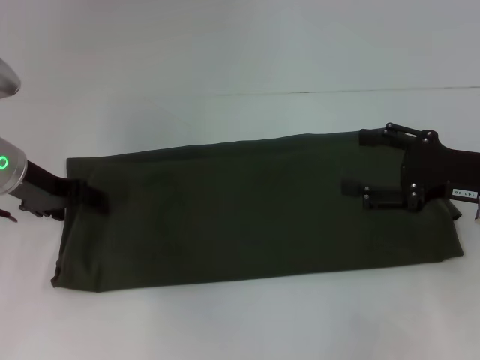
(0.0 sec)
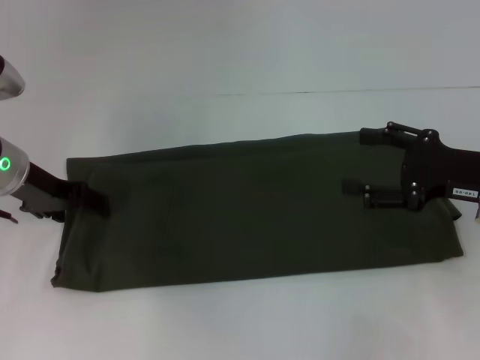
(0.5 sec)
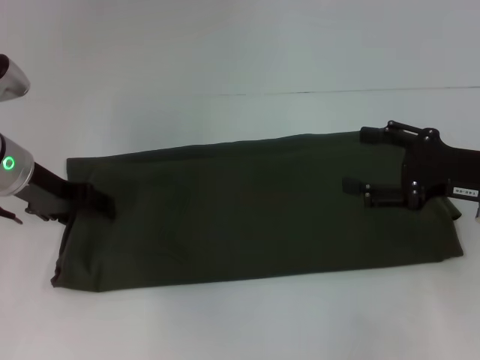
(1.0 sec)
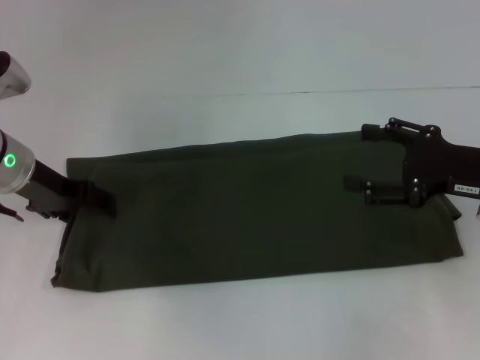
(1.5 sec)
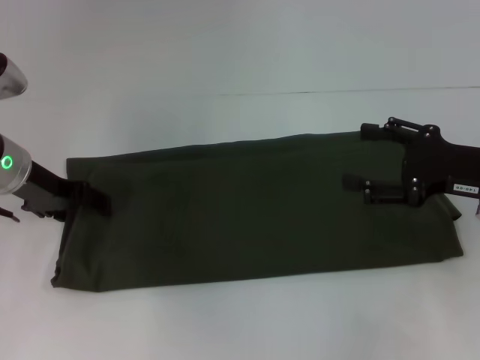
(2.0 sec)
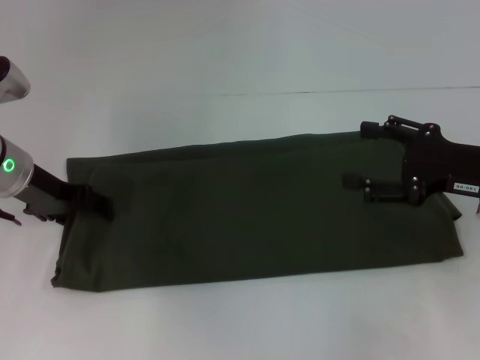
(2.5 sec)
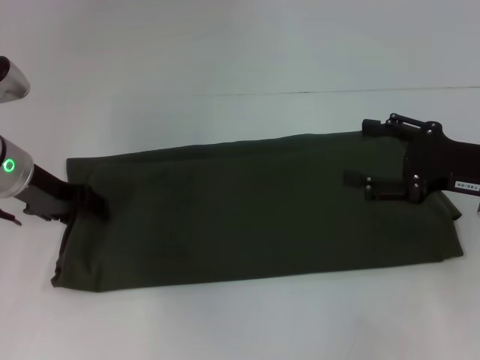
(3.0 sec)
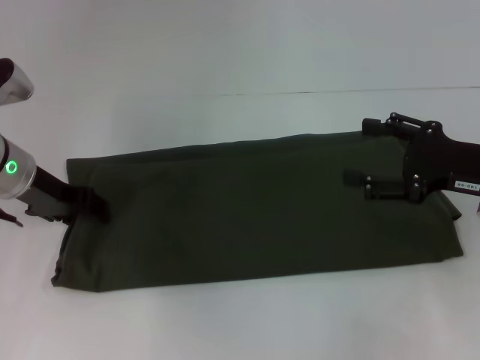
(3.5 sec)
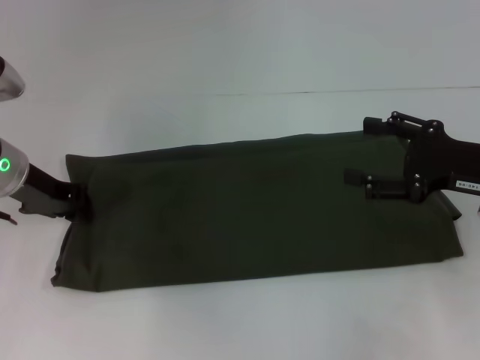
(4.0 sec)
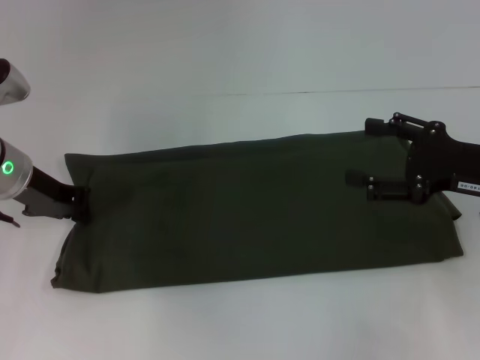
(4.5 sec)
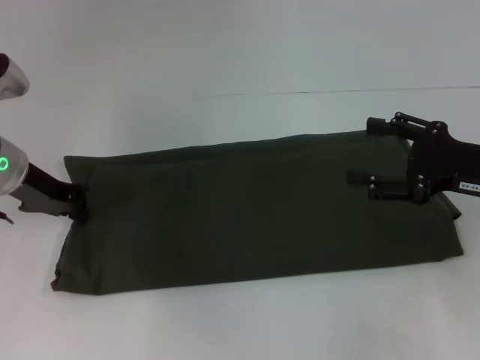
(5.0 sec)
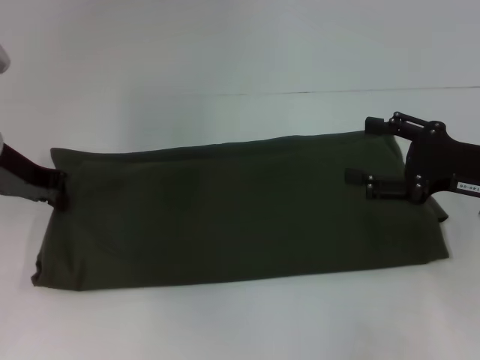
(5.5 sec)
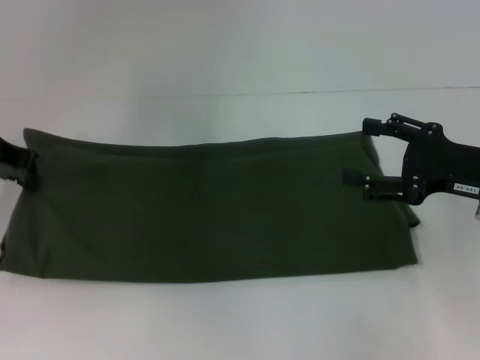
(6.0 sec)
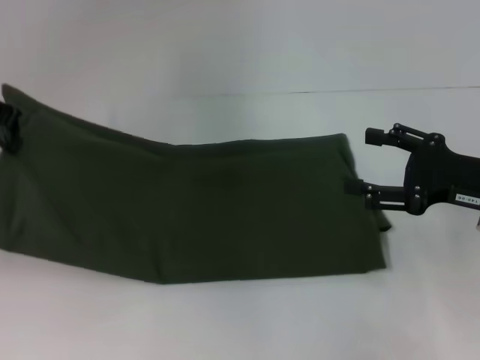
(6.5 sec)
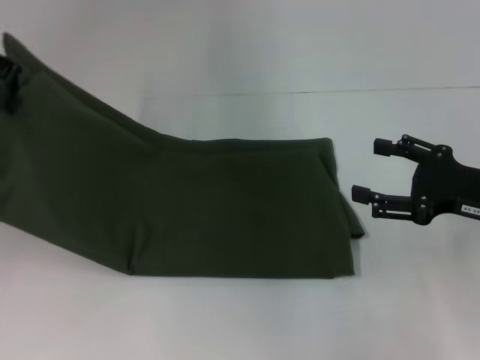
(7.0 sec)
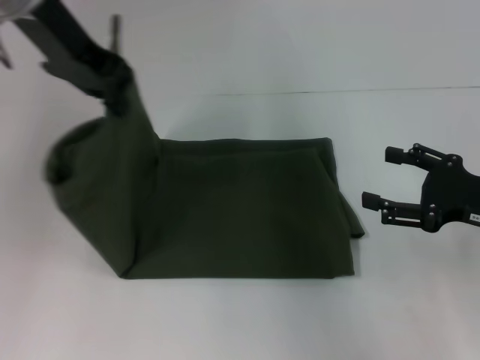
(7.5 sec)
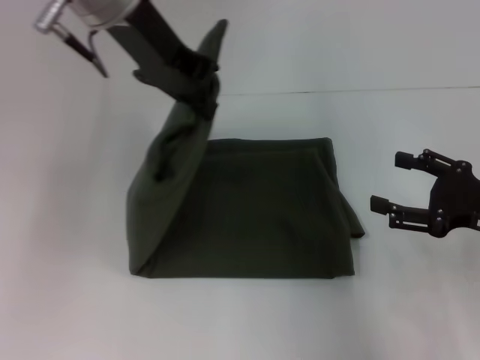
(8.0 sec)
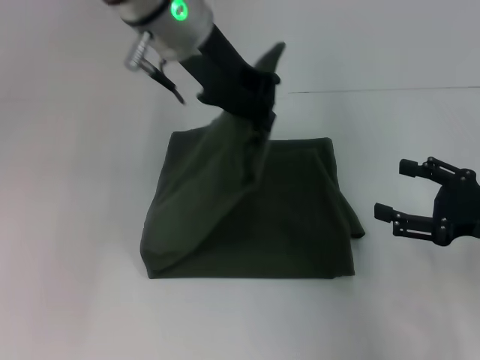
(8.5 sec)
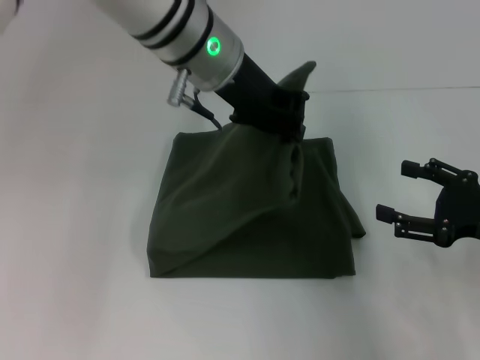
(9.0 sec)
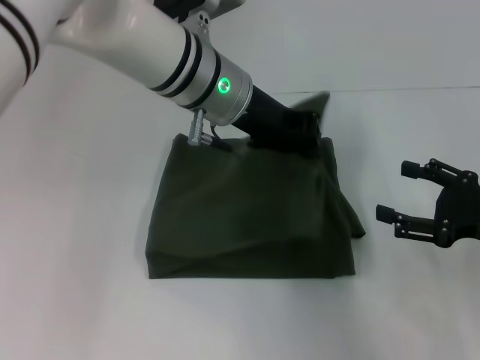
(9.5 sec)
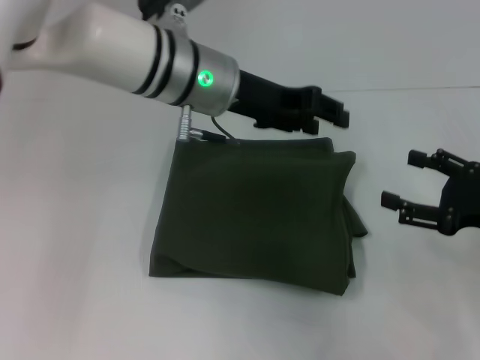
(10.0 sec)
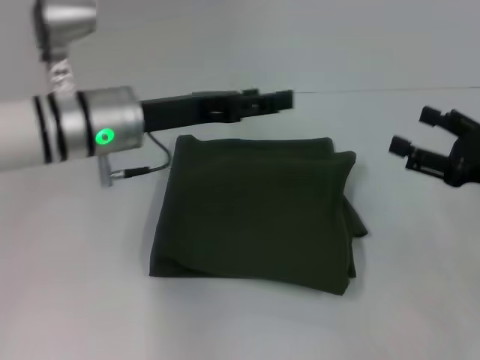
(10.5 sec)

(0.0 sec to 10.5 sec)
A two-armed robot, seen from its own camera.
Step, 0.0 sec - 9.5 sec: Fold the clothes with your left hand.
0.0 sec - 2.0 sec: Both grippers stay put.
2.0 sec - 4.0 sec: The left gripper closes up.
4.0 sec - 6.5 sec: The left gripper goes approximately 15 cm upward, and closes up.
6.5 sec - 8.5 sec: The left gripper is displaced to the right by approximately 20 cm.
8.5 sec - 10.5 sec: The left gripper moves downward and to the left, some 15 cm, and opens.

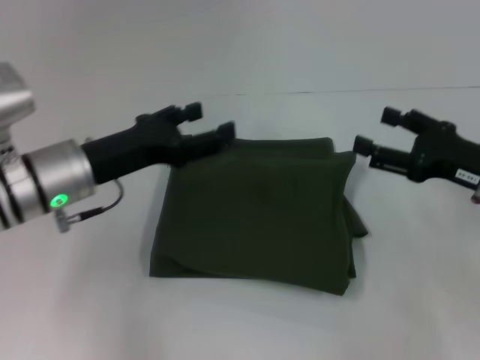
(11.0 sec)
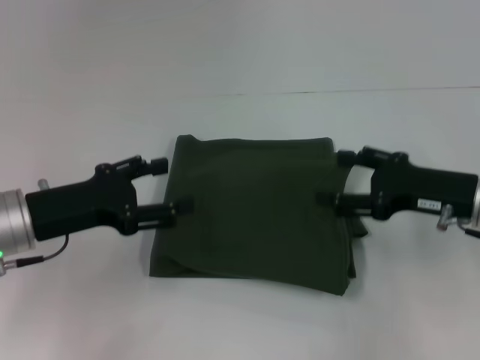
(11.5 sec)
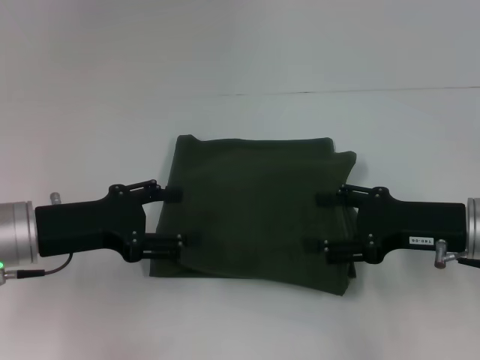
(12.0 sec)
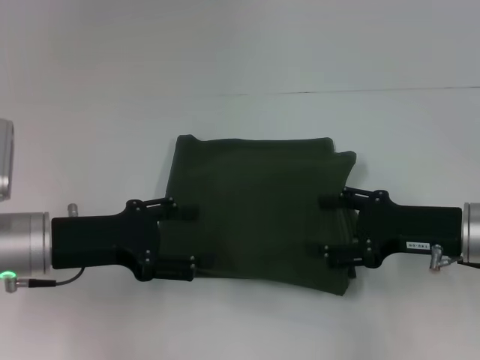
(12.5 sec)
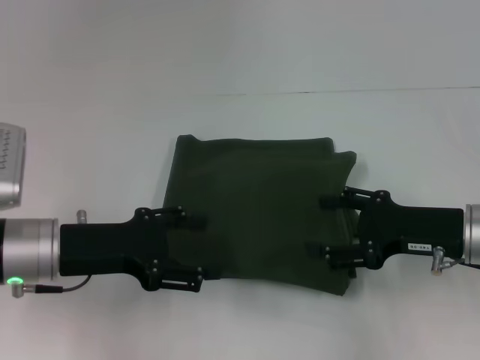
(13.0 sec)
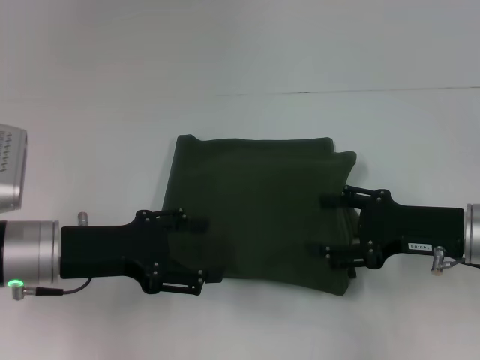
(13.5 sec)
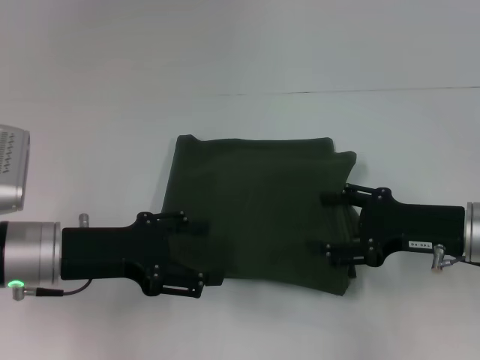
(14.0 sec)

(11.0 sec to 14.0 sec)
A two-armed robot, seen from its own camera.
11.0 sec - 12.5 sec: The left gripper changes place by roughly 5 cm.
12.5 sec - 14.0 sec: Both grippers stay about where they are.

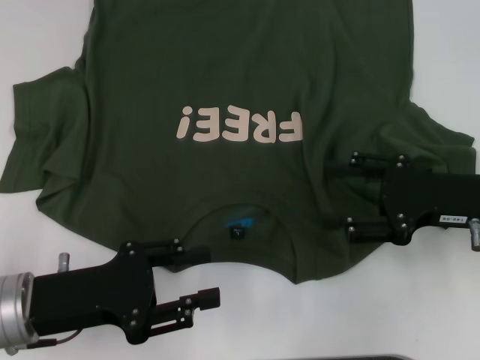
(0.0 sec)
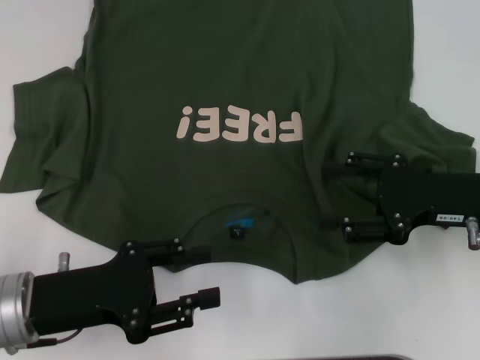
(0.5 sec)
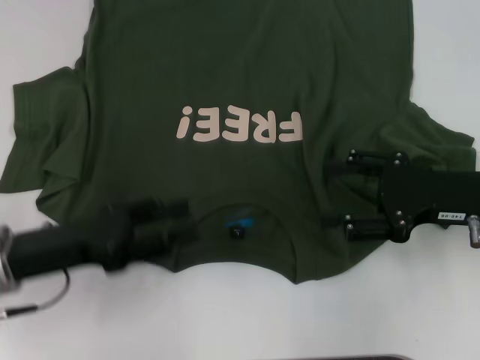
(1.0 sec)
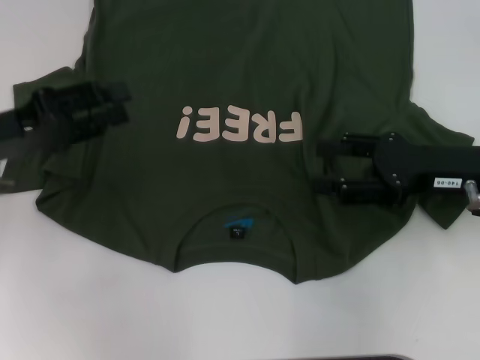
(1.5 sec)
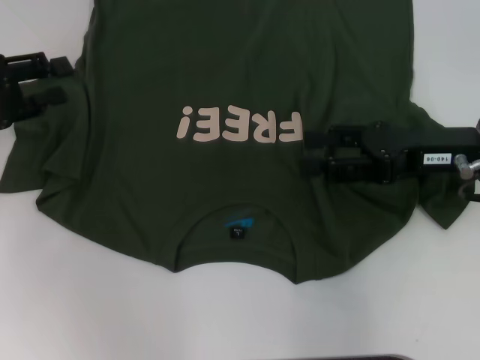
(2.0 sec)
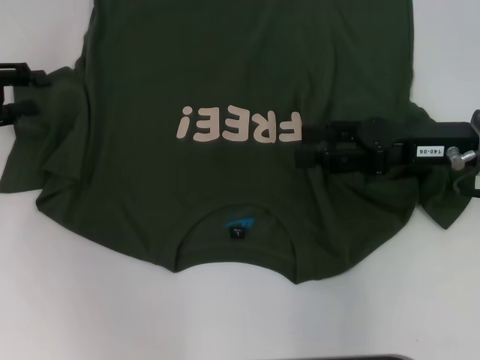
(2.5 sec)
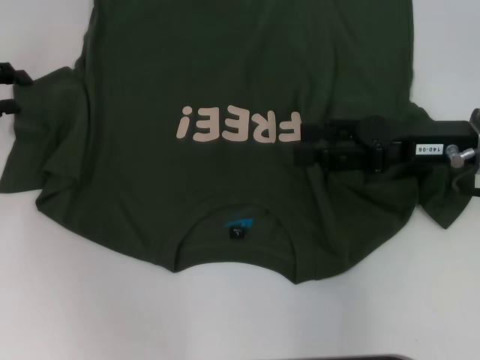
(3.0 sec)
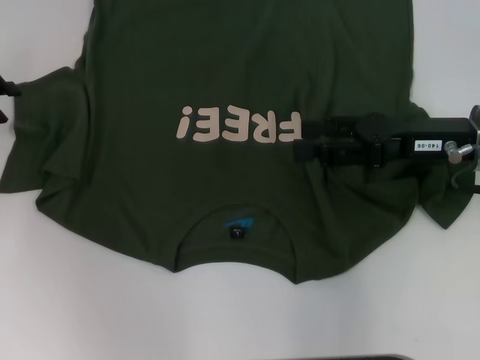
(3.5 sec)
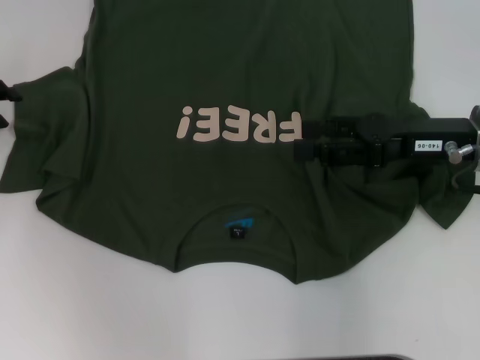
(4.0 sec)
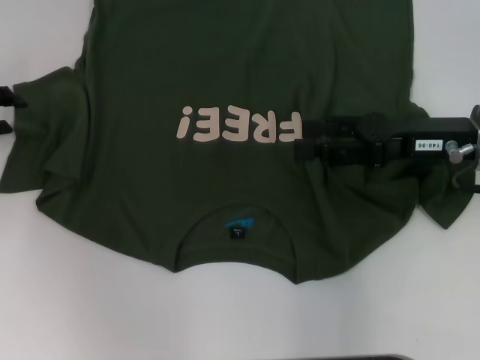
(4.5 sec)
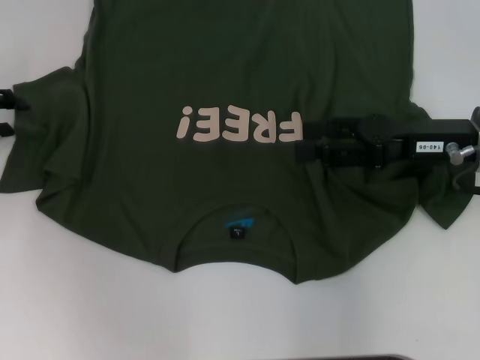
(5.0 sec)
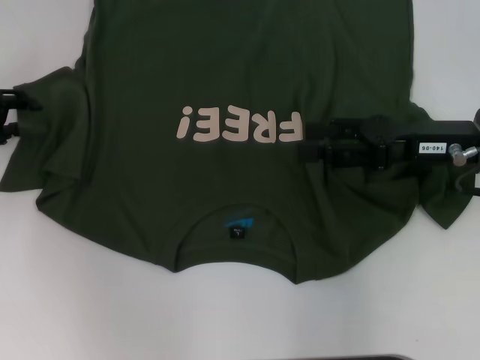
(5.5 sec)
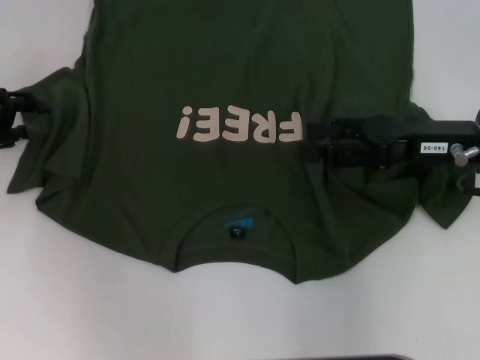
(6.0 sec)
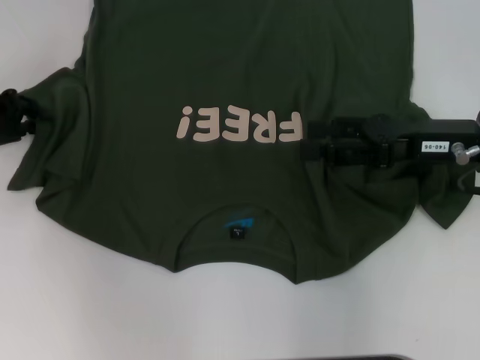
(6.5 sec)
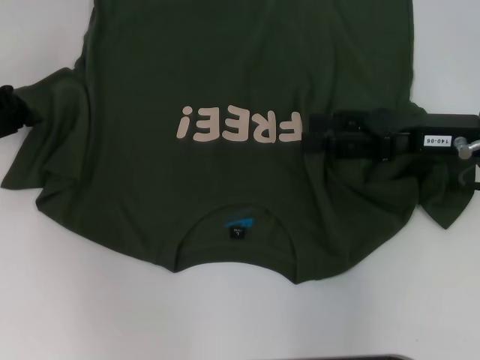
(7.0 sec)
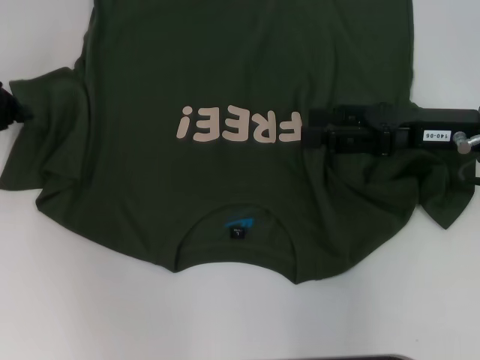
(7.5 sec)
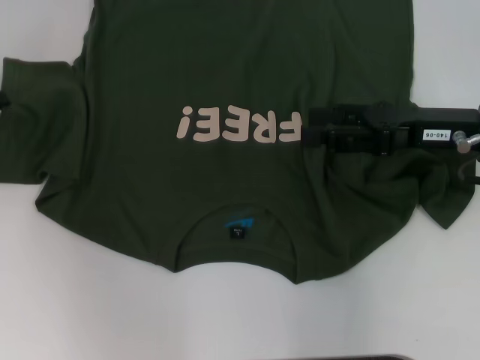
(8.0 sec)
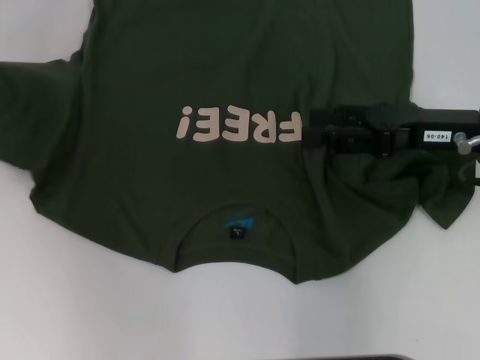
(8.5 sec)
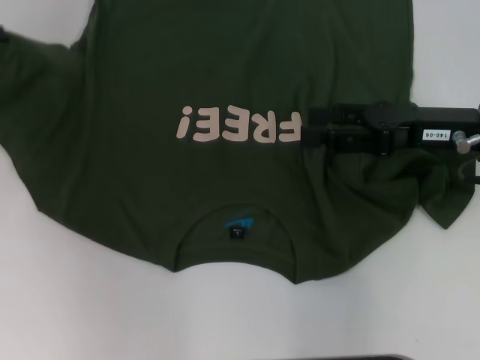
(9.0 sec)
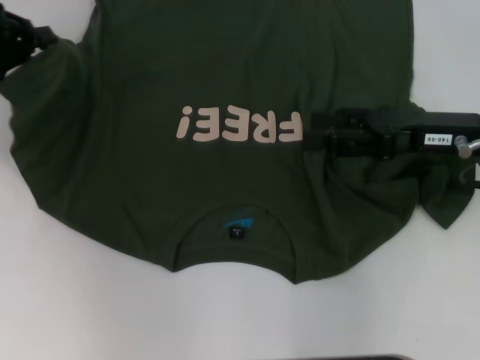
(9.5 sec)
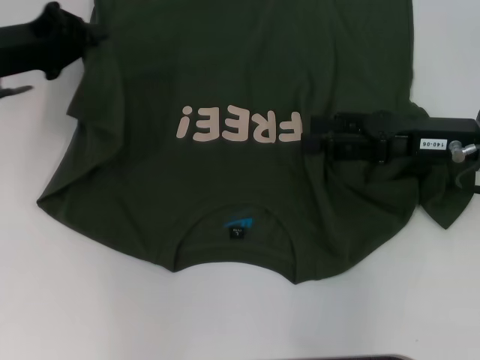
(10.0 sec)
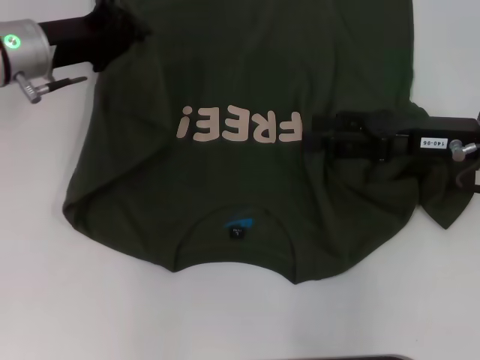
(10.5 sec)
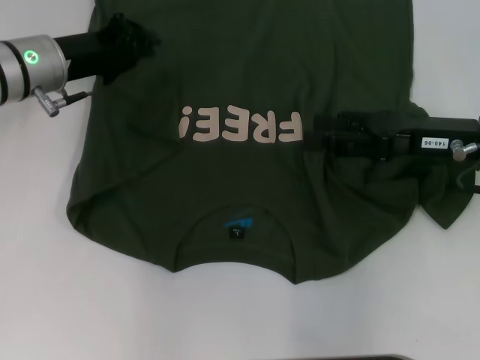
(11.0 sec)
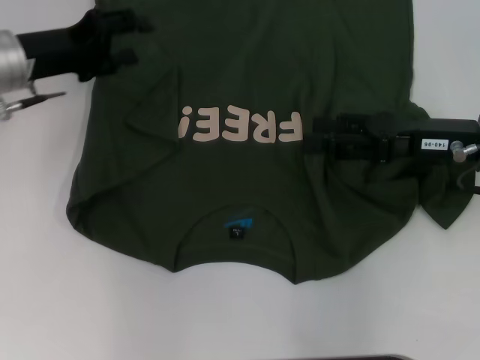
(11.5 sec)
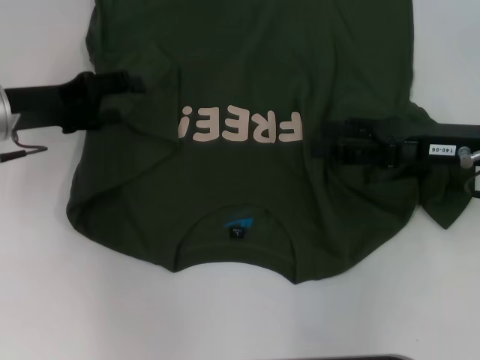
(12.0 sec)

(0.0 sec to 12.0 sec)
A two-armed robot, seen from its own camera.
0.0 sec - 2.0 sec: The right gripper shifts by approximately 5 cm. Meanwhile the left gripper shifts some 20 cm forward, to the left and upward.
2.0 sec - 4.0 sec: The left gripper ends up some 5 cm from where it was.
4.0 sec - 6.0 sec: The grippers move only a little.
6.0 sec - 8.0 sec: The left gripper closes.
8.0 sec - 10.0 sec: The left gripper is displaced to the right by approximately 10 cm.
10.0 sec - 12.0 sec: The left gripper opens its fingers.
